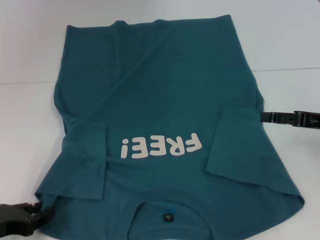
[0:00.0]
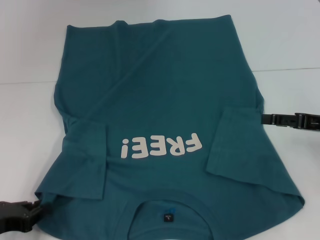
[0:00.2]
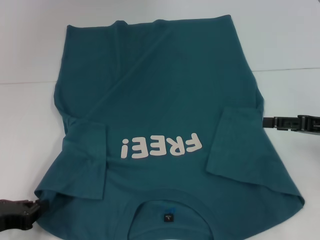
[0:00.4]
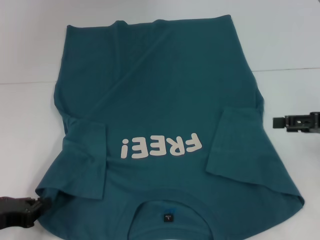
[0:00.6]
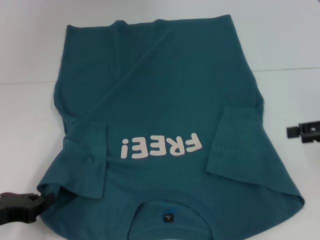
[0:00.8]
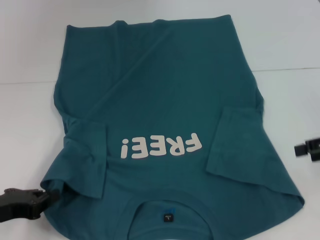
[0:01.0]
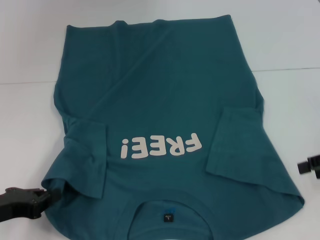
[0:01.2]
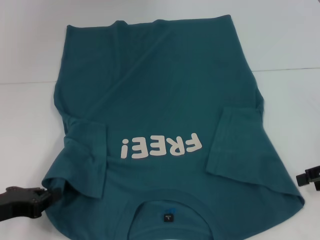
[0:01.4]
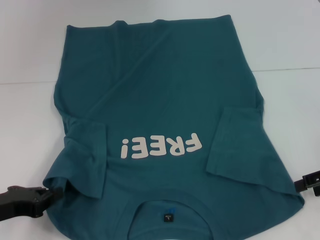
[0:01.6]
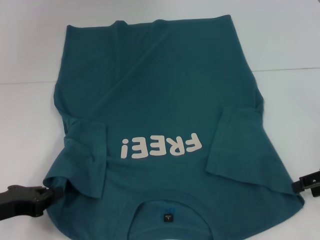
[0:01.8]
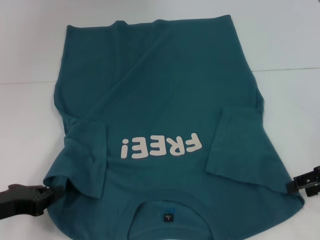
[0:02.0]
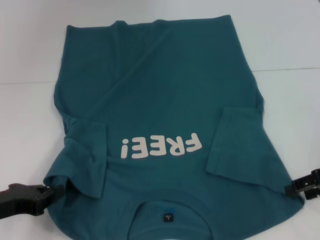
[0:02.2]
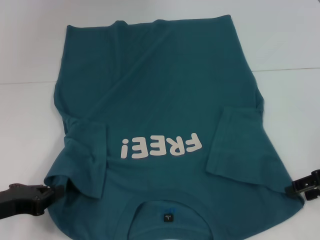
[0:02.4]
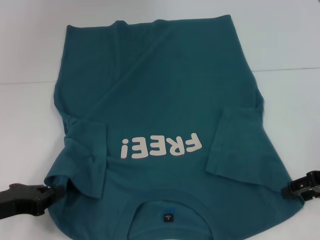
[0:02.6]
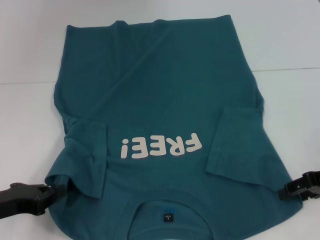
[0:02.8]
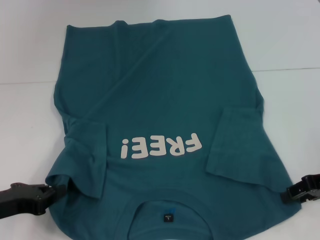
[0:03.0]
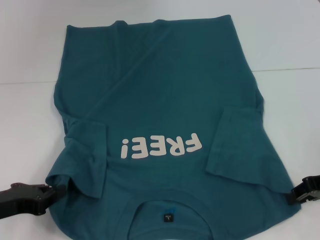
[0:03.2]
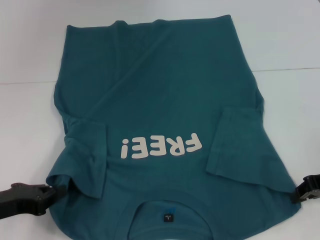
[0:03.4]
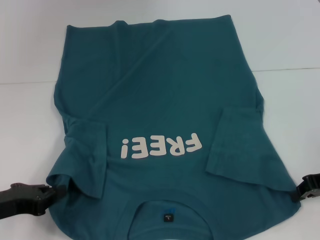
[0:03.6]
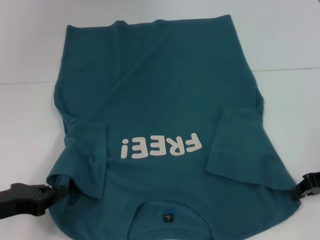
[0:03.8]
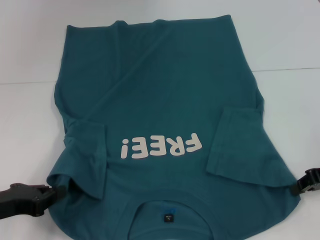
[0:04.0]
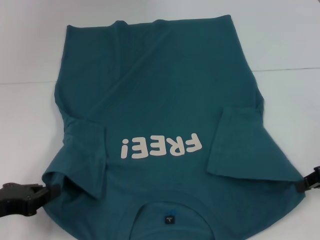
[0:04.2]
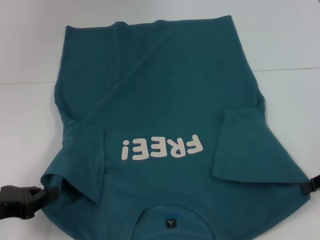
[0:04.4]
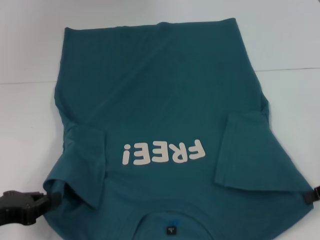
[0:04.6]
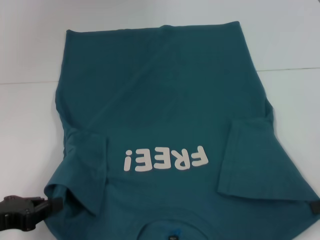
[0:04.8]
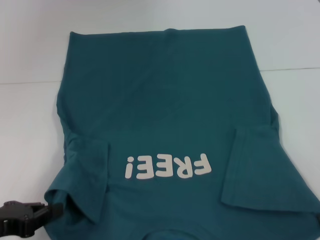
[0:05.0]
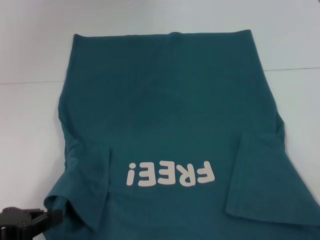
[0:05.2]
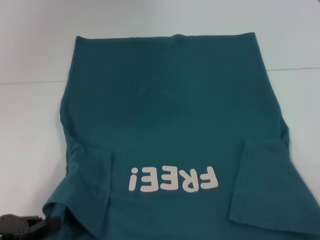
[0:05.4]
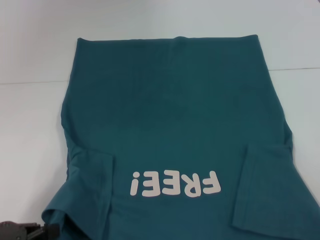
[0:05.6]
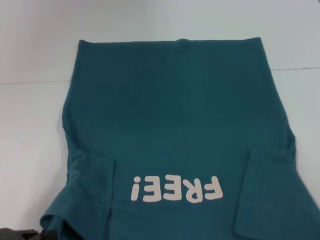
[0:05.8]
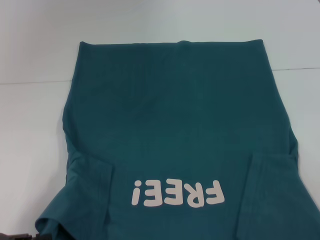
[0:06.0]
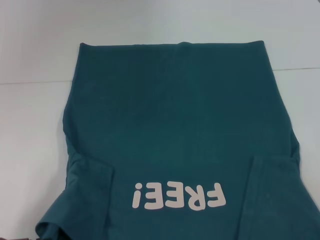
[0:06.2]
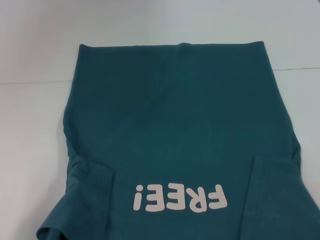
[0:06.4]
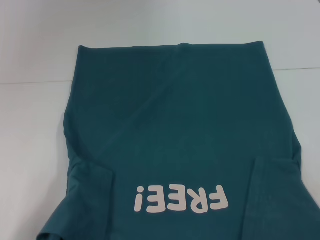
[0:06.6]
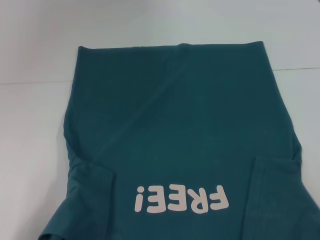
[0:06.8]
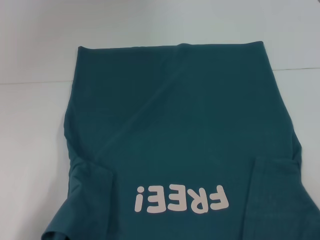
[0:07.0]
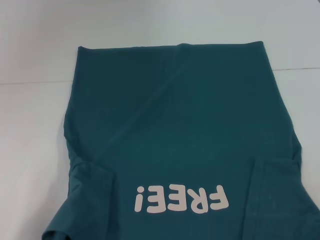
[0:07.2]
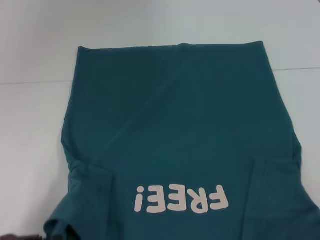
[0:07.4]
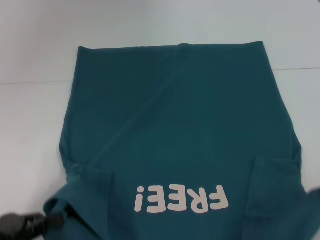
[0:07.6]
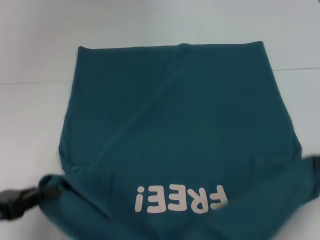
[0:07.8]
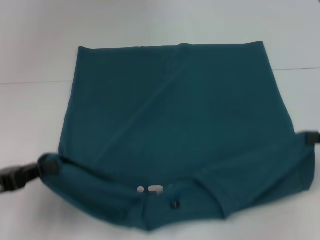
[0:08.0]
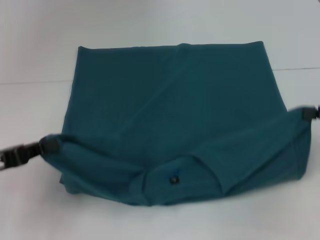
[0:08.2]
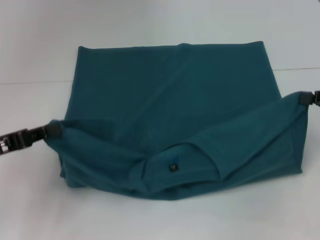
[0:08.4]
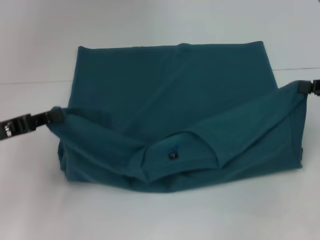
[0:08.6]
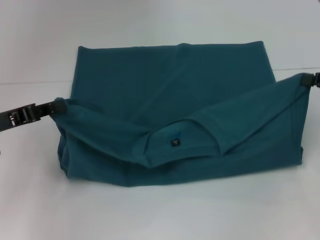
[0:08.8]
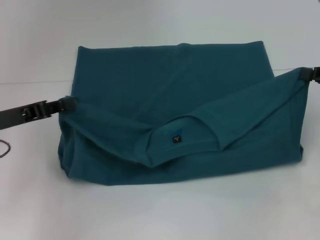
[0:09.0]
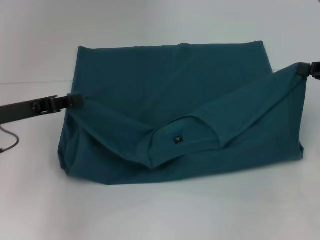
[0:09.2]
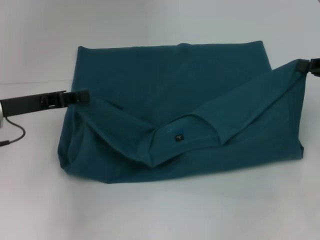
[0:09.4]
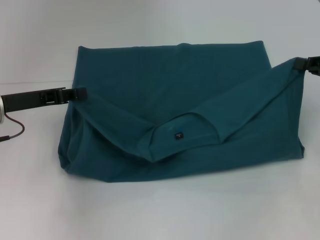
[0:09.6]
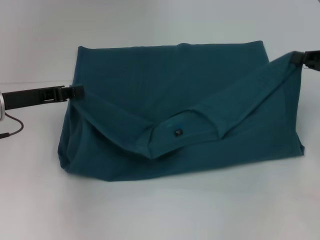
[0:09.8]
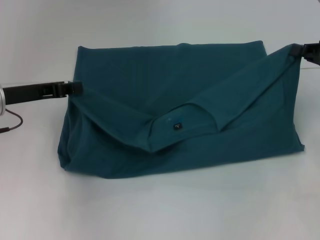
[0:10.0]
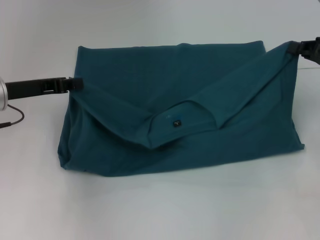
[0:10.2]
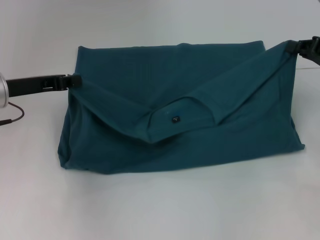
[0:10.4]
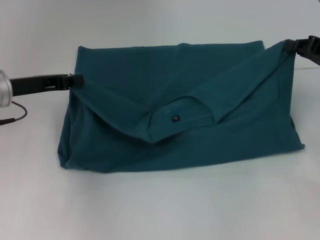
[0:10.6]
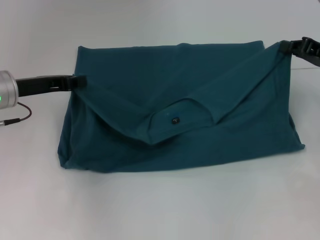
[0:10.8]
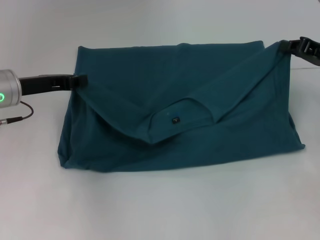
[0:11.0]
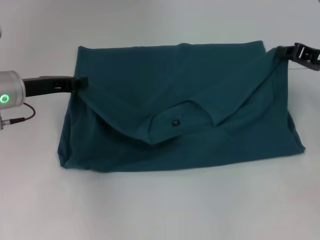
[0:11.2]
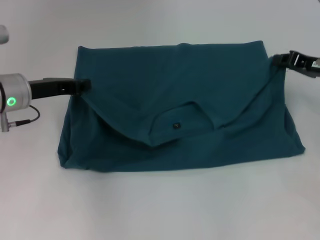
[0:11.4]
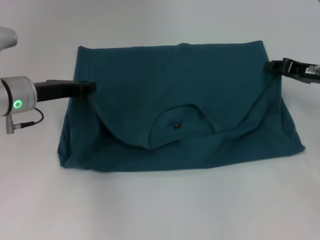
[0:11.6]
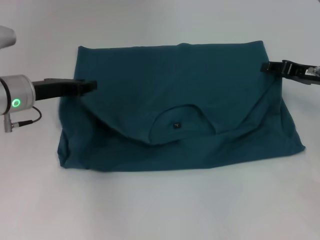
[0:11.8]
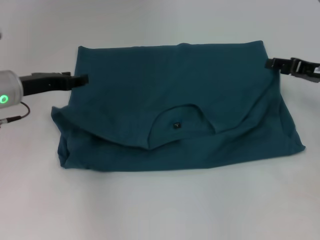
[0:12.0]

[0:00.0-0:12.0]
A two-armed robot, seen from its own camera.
Step, 0:01.2 to 0:04.2: Grab the bottom right corner with your right hand.
0:00.0 to 0:01.6: The left gripper closes.
0:01.6 to 0:03.0: The grippers stay close to where they were, moving slightly.
0:03.0 to 0:04.4: The right gripper closes up.
0:04.4 to 0:06.0: The left gripper moves backward, some 5 cm. Meanwhile the right gripper shifts roughly 10 cm backward.
0:06.0 to 0:07.6: The right gripper shifts by some 5 cm.
0:07.6 to 0:09.0: The grippers both shift forward by about 15 cm.
0:09.0 to 0:10.4: The left gripper travels forward by approximately 5 cm.
0:10.4 to 0:12.0: The right gripper opens.

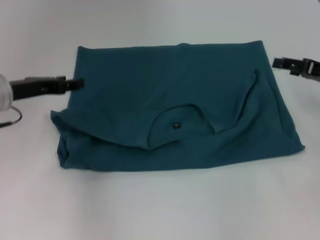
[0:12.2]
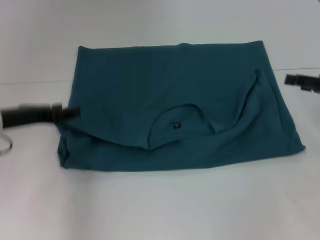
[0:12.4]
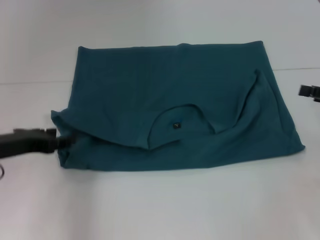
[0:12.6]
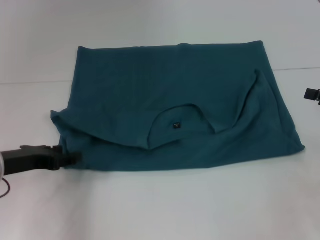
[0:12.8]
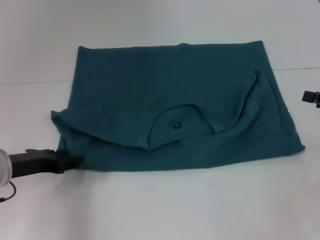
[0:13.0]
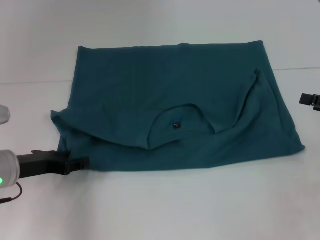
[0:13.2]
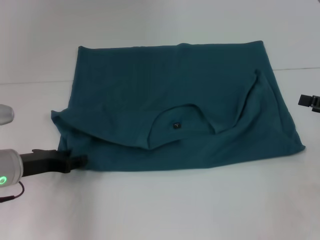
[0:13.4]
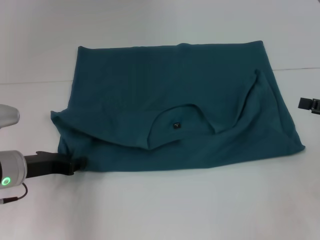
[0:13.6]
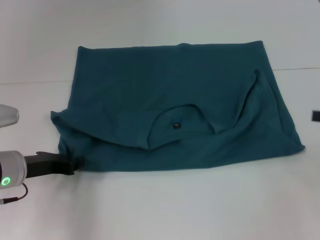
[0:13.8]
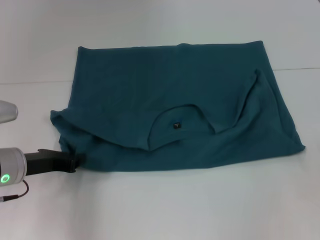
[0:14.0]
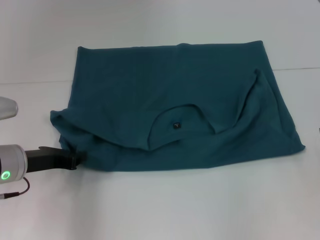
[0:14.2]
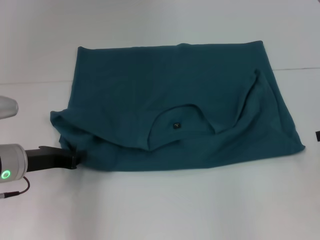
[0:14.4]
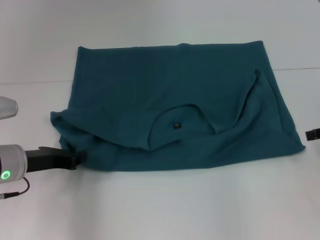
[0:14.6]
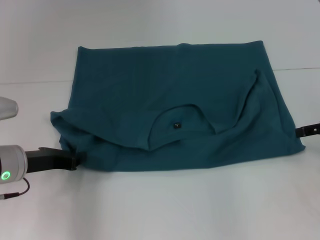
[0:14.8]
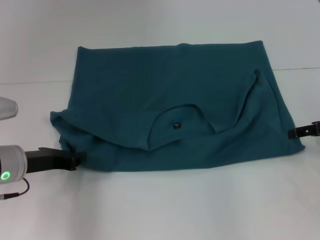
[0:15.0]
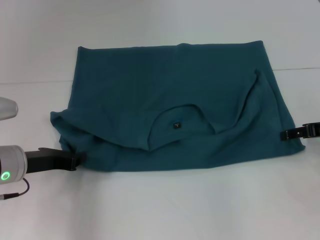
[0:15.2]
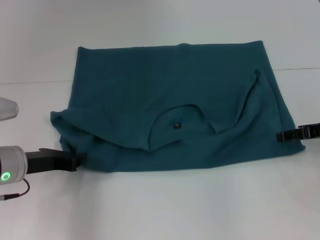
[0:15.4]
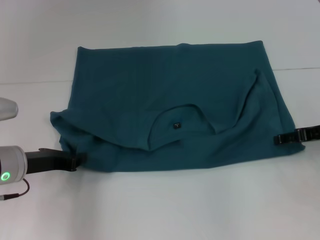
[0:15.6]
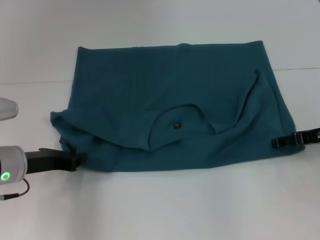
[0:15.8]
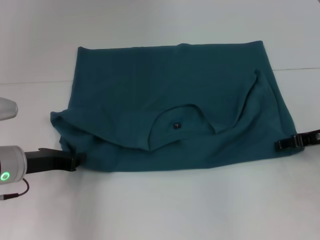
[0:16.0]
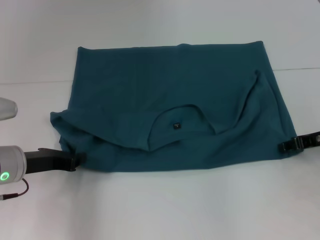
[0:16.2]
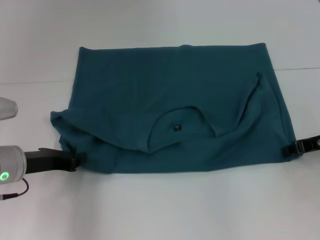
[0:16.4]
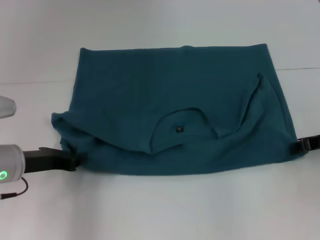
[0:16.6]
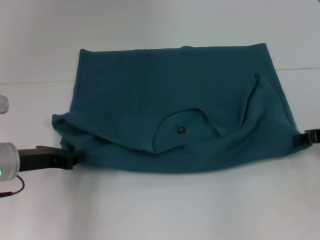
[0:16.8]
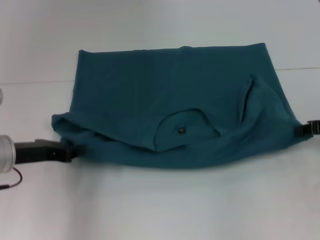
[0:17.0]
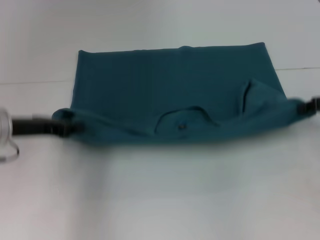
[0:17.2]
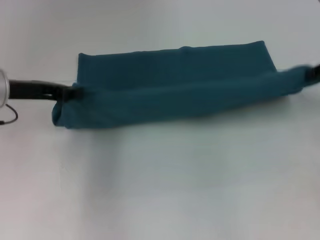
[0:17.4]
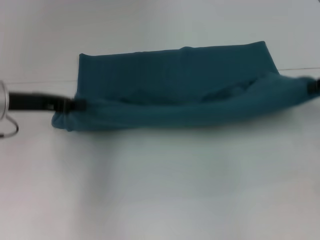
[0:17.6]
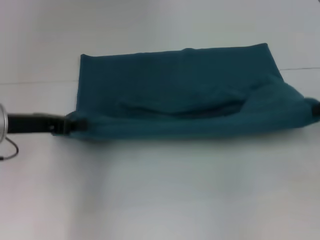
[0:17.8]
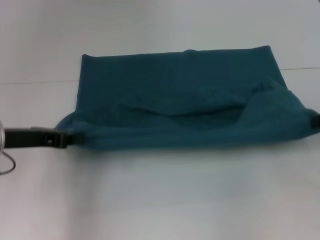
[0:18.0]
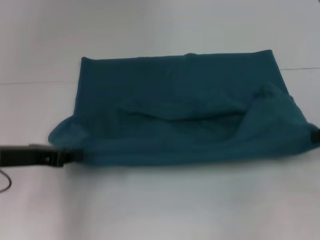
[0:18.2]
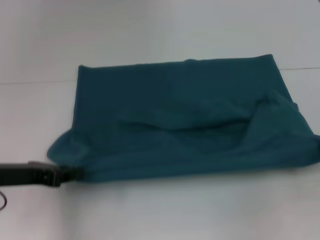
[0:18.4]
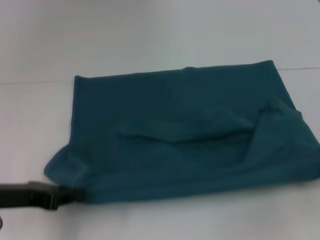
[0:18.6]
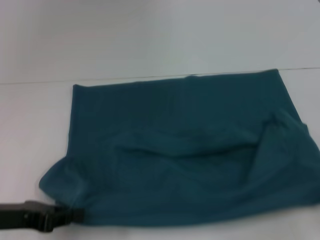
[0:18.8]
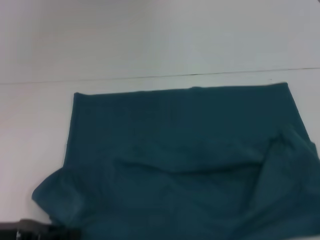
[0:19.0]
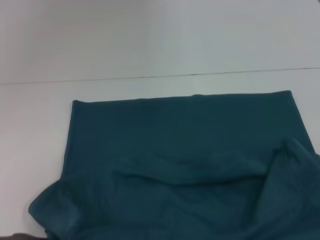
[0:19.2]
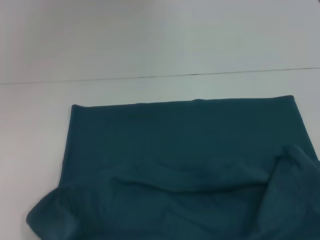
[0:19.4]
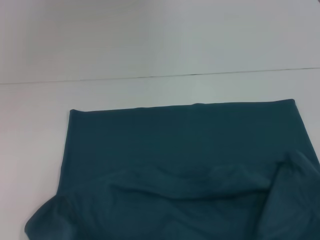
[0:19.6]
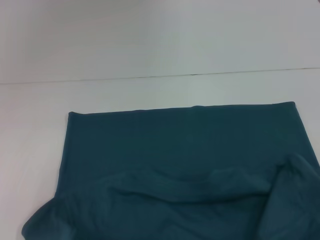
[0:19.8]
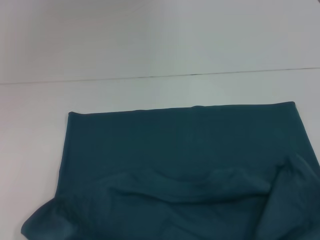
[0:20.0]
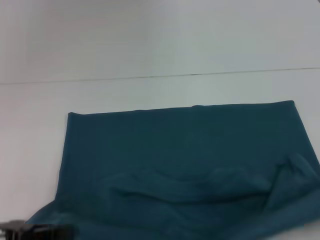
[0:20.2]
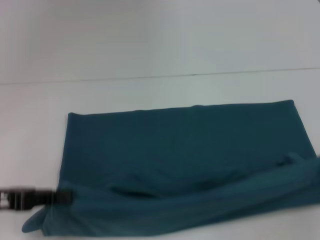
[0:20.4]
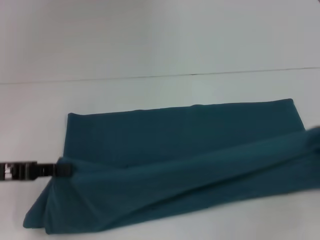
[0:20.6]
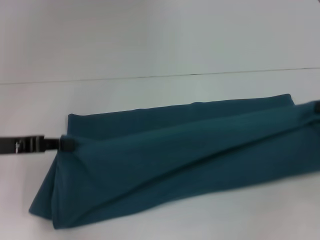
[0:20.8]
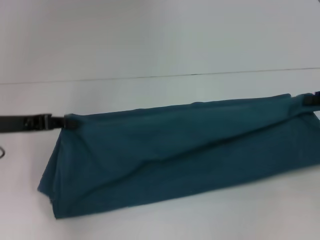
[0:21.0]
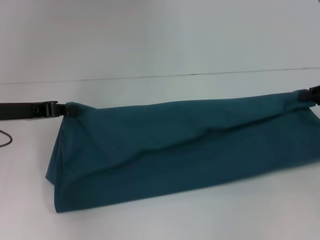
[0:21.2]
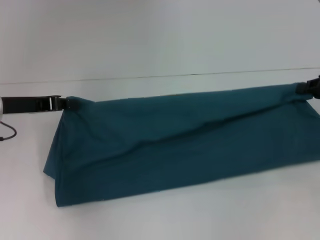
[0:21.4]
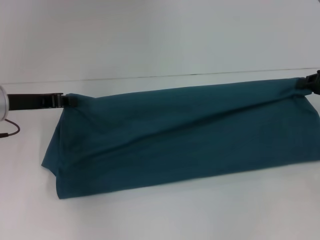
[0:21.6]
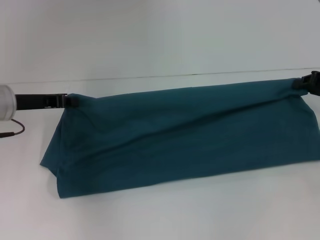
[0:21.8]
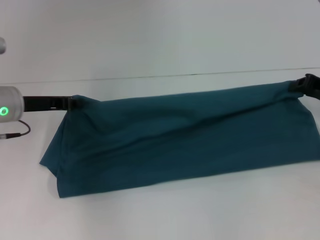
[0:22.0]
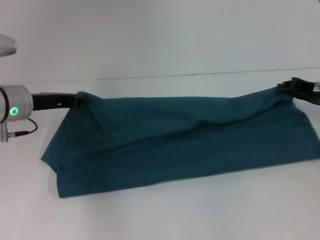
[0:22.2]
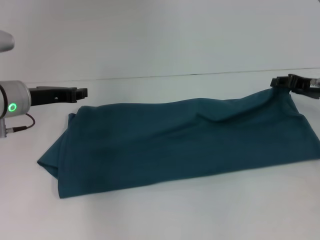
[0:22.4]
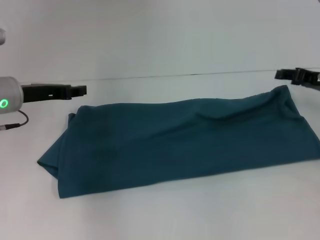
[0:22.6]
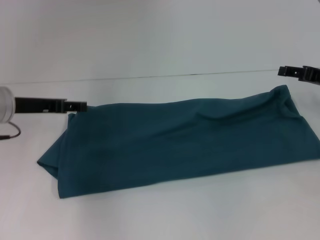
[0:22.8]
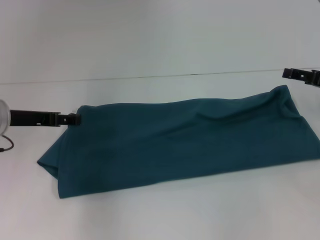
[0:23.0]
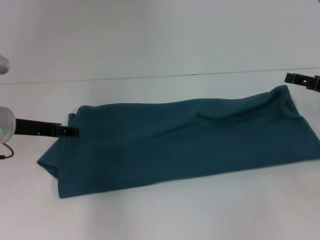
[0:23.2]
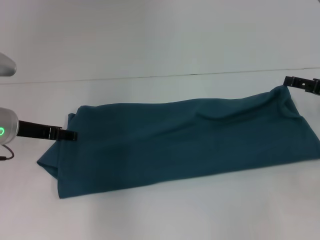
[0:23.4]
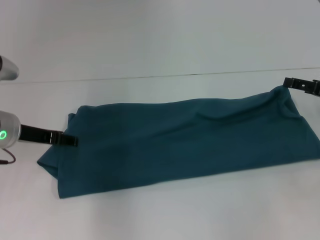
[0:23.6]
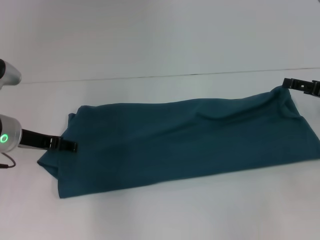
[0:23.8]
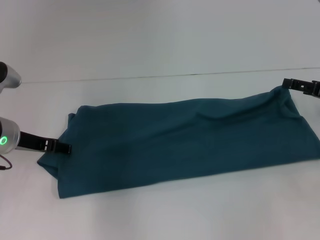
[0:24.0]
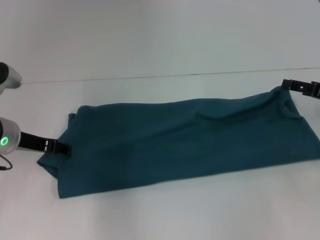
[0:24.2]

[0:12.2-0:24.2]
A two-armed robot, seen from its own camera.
Step, 0:12.2 to 0:19.6: Pull the clothes with your left hand.
Step, 0:12.2 to 0:19.6: Pull the clothes with your right hand.
Step, 0:19.8 to 0:22.6: Fold the clothes to the left.
Step, 0:19.8 to 0:22.6: Fold the clothes to the right.
0:12.2 to 0:13.8: The left gripper shifts approximately 10 cm backward and downward; the right gripper shifts about 10 cm backward and to the right.
0:13.8 to 0:15.2: The right gripper is displaced forward and to the left by about 10 cm.
0:15.2 to 0:16.6: The right gripper closes its fingers.
0:18.2 to 0:19.8: Both grippers travel together backward, about 15 cm.
0:19.8 to 0:21.2: The two grippers go about 20 cm forward.
0:21.2 to 0:22.6: The left gripper shifts by roughly 5 cm. Meanwhile the right gripper shifts by approximately 5 cm.
0:22.6 to 0:24.2: The left gripper opens up. Meanwhile the right gripper moves roughly 5 cm, and opens its fingers.
